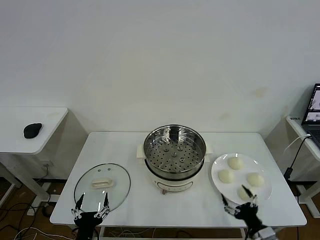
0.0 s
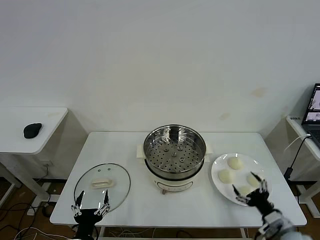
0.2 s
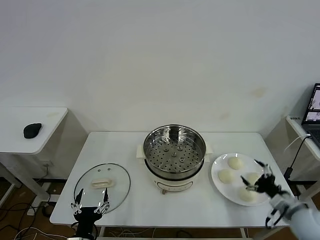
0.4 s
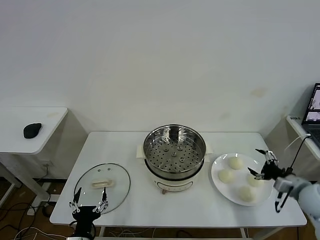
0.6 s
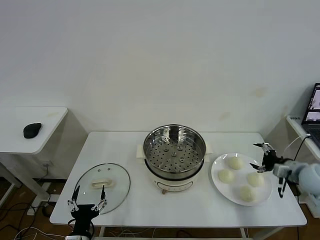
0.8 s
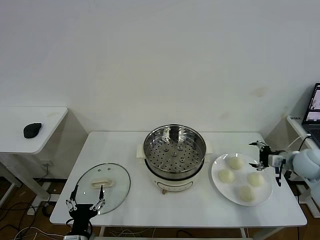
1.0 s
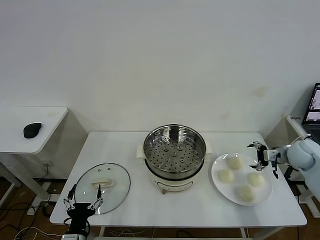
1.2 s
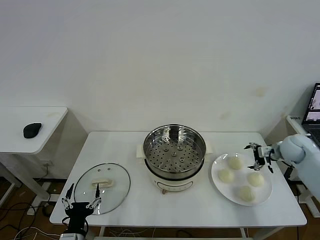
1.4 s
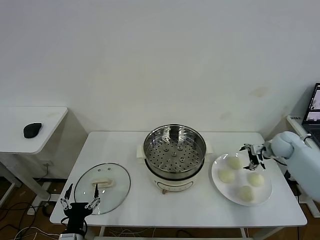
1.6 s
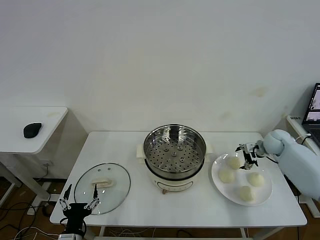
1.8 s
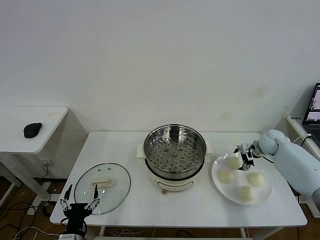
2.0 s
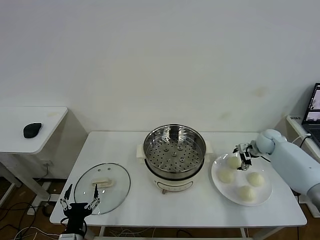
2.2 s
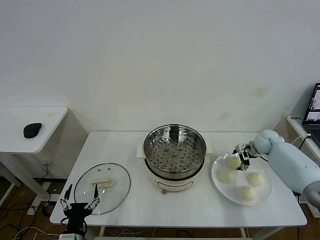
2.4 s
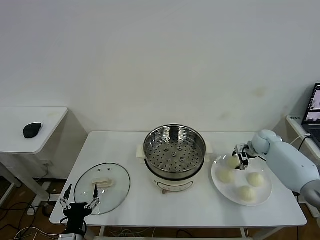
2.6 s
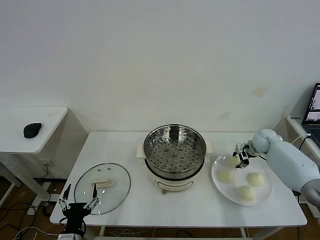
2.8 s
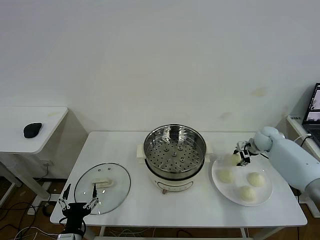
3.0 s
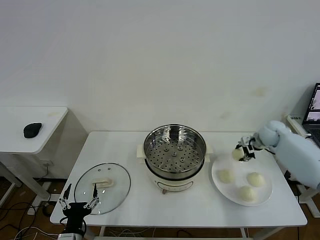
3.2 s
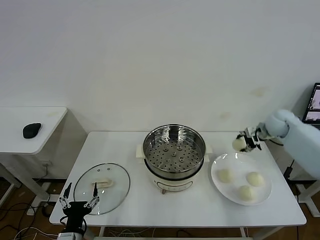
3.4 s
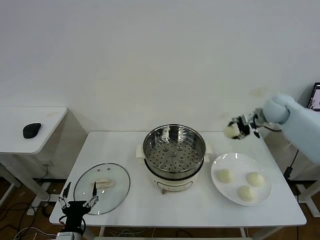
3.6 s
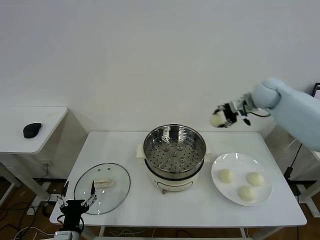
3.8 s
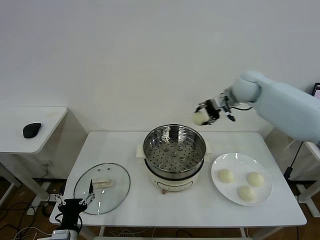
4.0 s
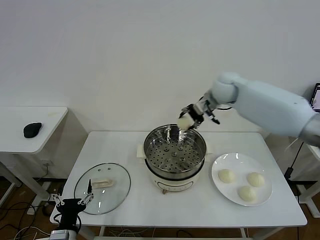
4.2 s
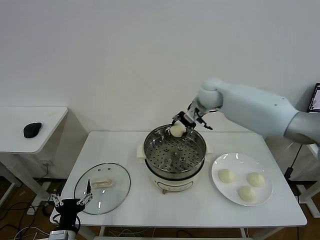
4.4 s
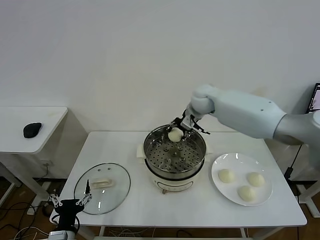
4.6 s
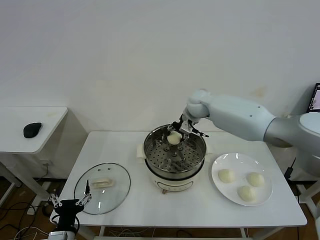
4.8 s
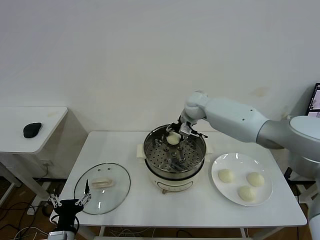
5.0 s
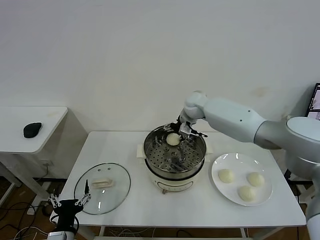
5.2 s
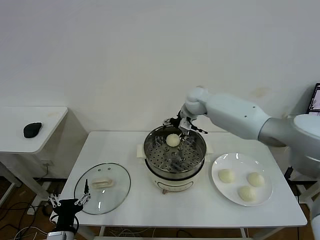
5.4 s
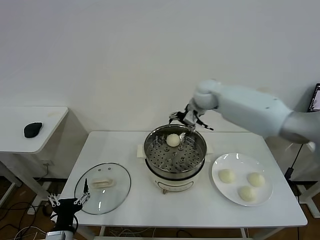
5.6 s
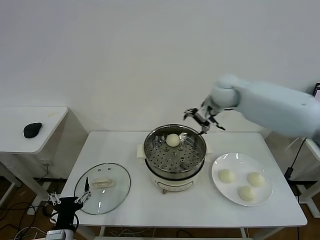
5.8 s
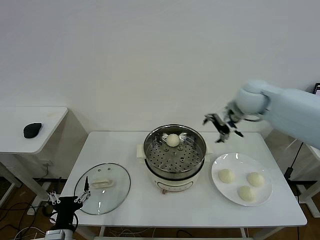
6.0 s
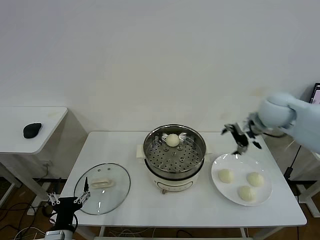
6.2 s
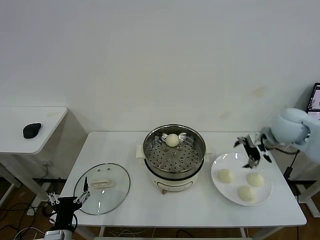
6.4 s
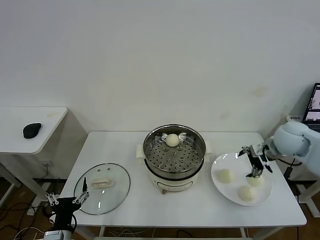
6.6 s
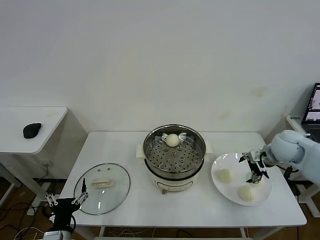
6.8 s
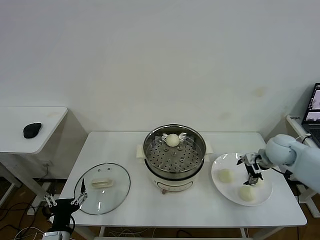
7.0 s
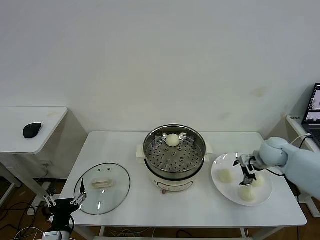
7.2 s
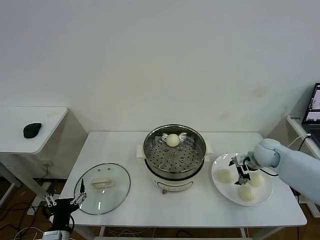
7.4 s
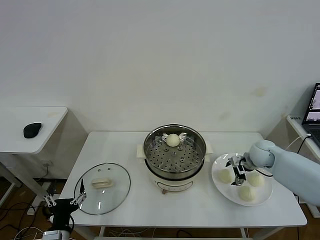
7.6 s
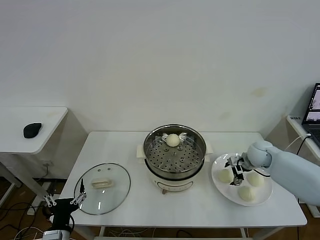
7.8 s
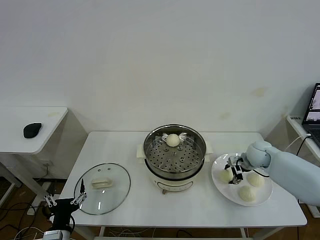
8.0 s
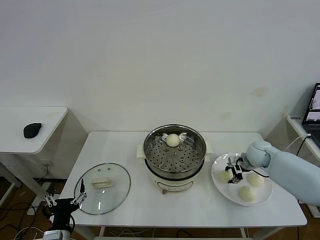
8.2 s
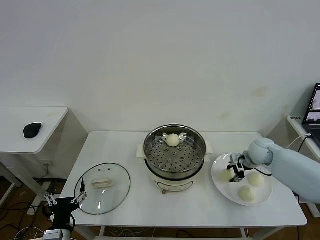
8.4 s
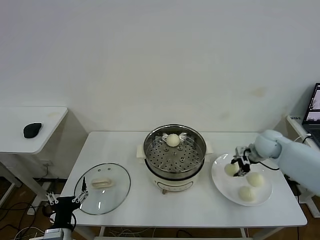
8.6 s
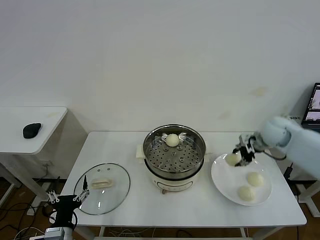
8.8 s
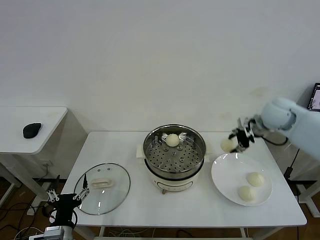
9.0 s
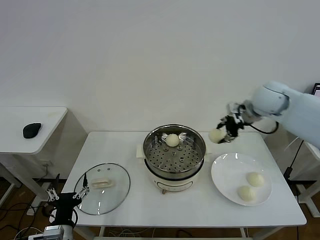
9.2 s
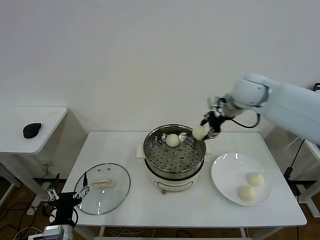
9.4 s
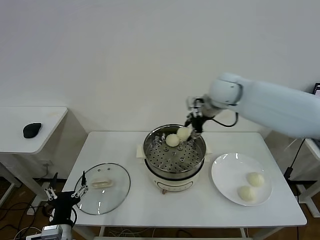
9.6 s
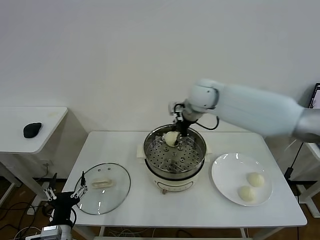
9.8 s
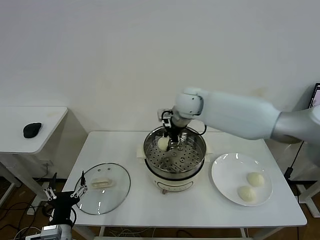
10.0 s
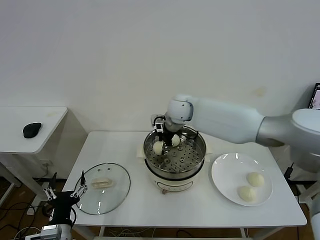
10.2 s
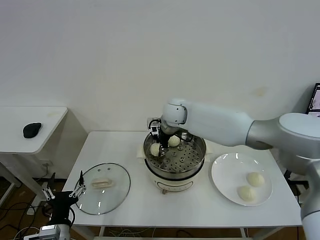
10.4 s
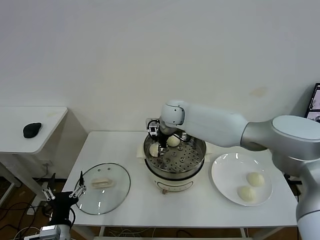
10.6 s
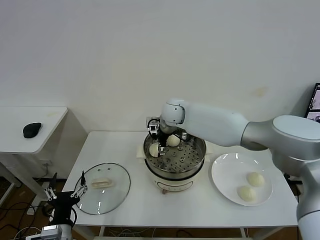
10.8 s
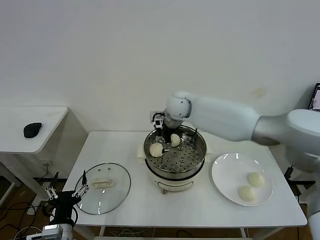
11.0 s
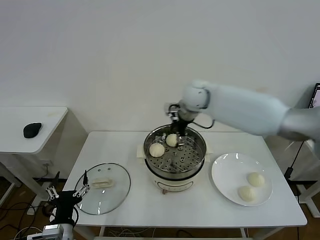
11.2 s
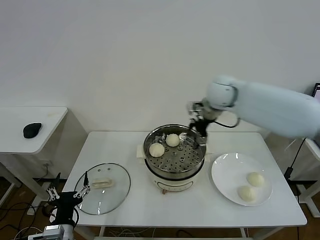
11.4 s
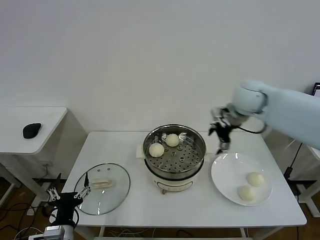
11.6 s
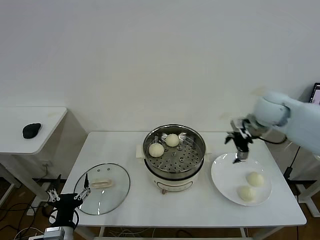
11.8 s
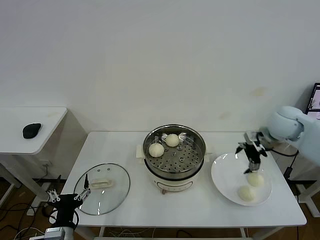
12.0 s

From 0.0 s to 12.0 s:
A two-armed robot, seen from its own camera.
Task of the whole recording: take steamed baozi put them in steamer then cover it.
Step, from 0.0 s to 3.0 s: Grasp the baozi in the plate with right gripper.
Step, from 3.2 s to 5.4 s: Place the baozi on the steamer with right gripper.
Step, from 5.6 s to 8.2 s: Grasp the baozi in the plate with right gripper.
Step, from 8.4 s to 10.6 s: Place the baozi on the steamer with right gripper.
From 1.6 s to 3.0 s: The right gripper closes its fingers.
From 3.0 s to 4.4 s: The right gripper goes approximately 30 cm to the left and upward.
From 4.4 s to 6.0 s: The right gripper is displaced to the right and backward by some 20 cm, and opens.
From 6.0 s to 7.6 s: The right gripper shifts some 20 cm downward.
From 7.6 s to 9.0 s: The right gripper heads upward, covering some 20 cm, and closes its fingers.
From 9.0 s to 10.4 s: The right gripper is displaced to the left by approximately 30 cm.
From 10.4 s to 12.0 s: The right gripper shifts some 35 cm to the right, and opens up.

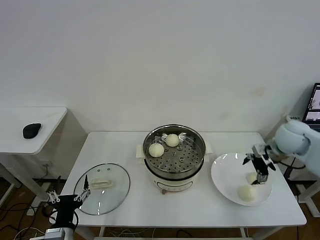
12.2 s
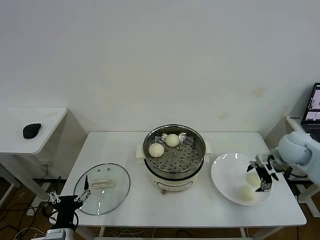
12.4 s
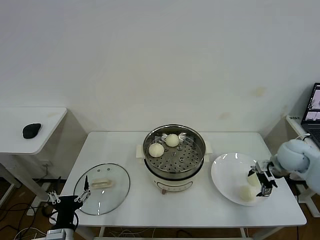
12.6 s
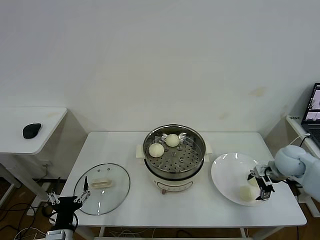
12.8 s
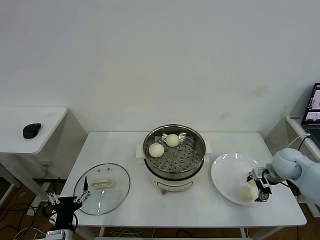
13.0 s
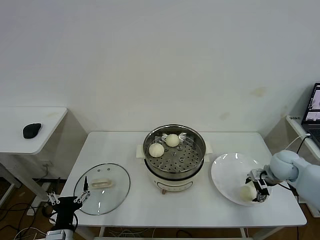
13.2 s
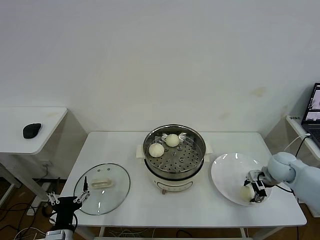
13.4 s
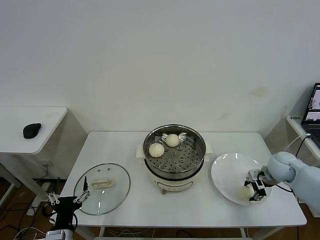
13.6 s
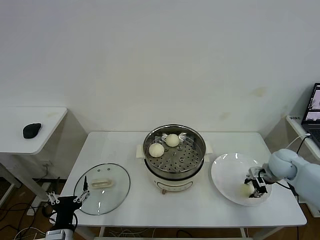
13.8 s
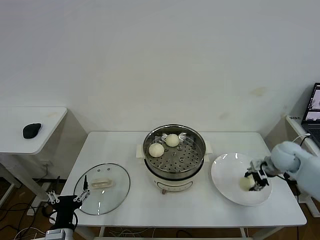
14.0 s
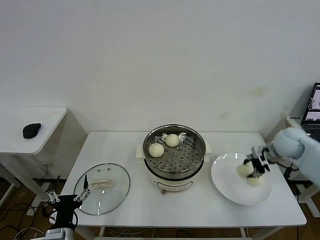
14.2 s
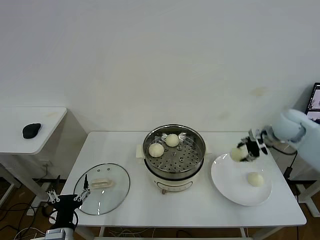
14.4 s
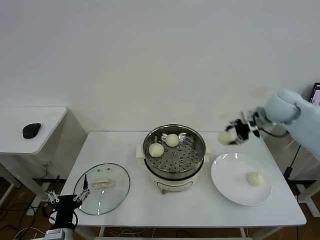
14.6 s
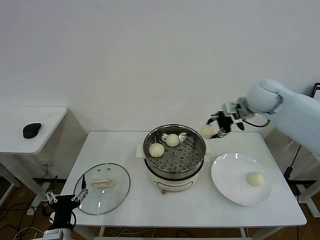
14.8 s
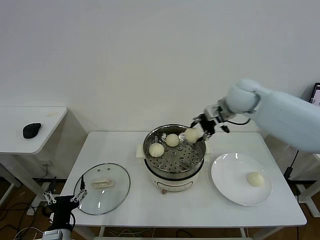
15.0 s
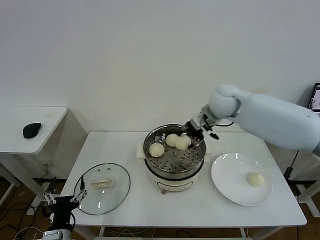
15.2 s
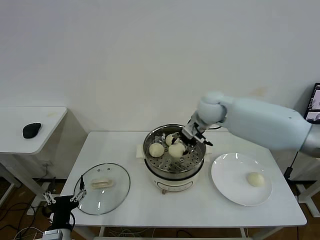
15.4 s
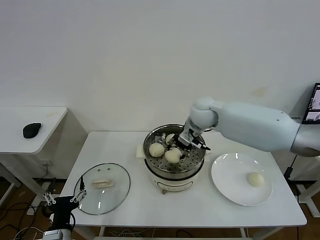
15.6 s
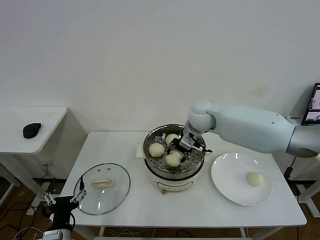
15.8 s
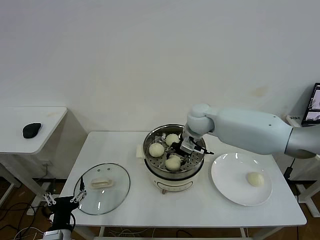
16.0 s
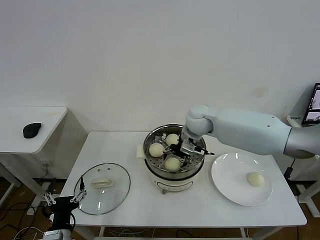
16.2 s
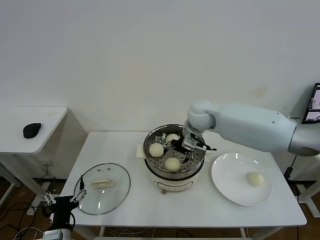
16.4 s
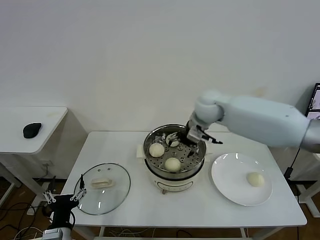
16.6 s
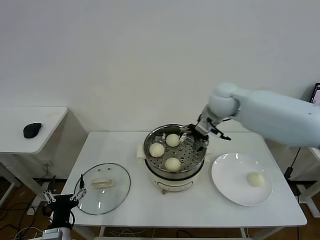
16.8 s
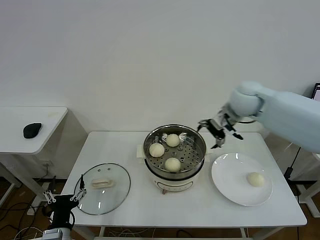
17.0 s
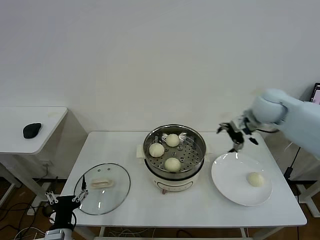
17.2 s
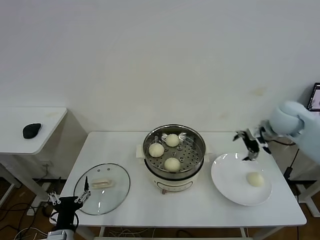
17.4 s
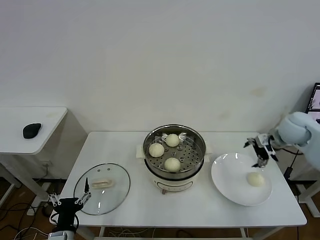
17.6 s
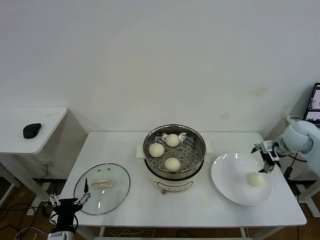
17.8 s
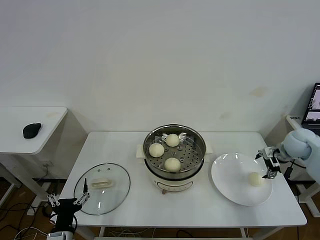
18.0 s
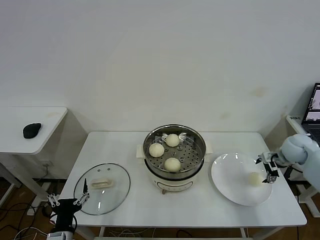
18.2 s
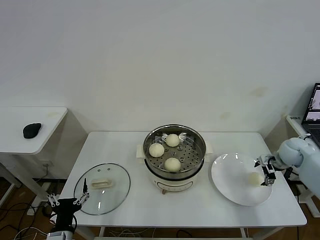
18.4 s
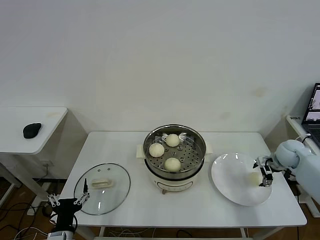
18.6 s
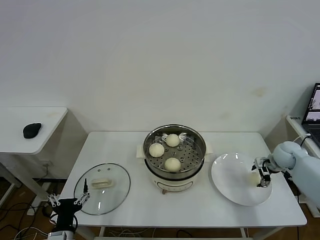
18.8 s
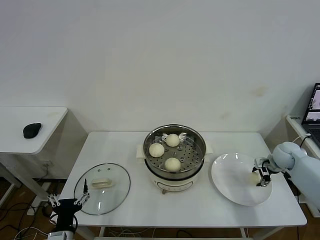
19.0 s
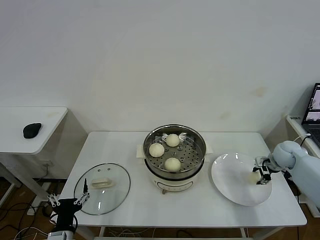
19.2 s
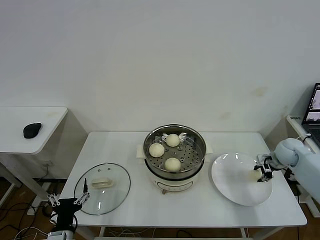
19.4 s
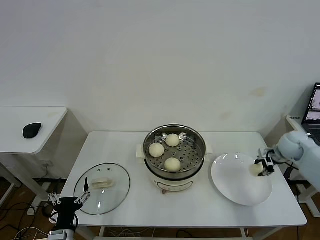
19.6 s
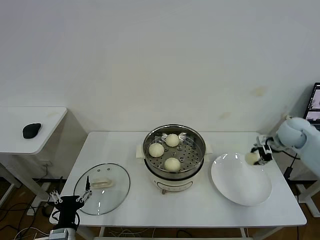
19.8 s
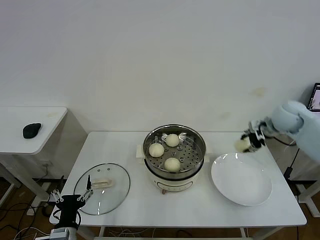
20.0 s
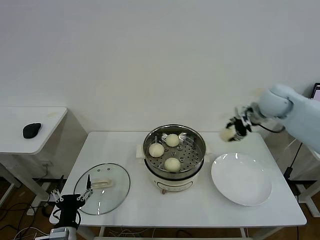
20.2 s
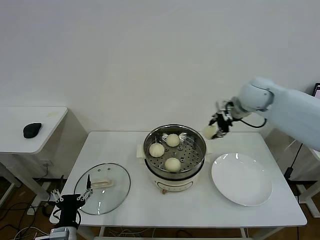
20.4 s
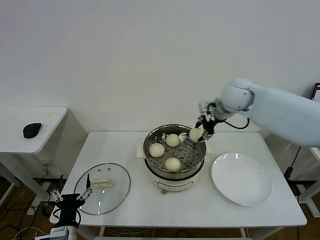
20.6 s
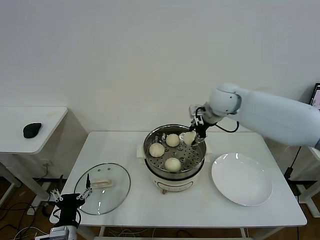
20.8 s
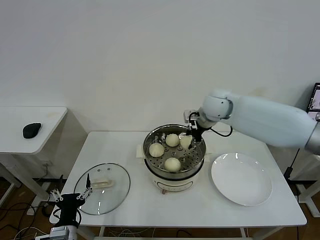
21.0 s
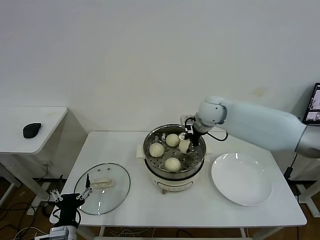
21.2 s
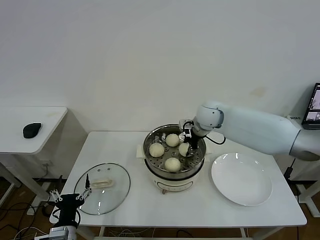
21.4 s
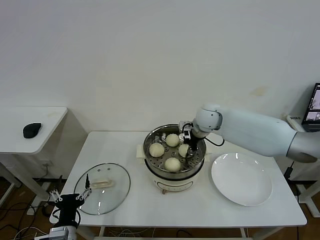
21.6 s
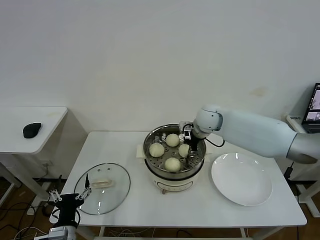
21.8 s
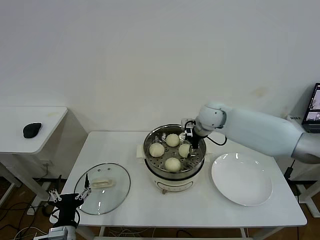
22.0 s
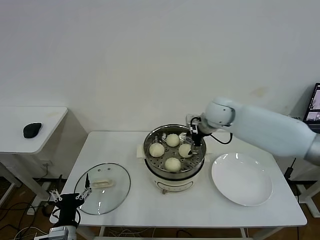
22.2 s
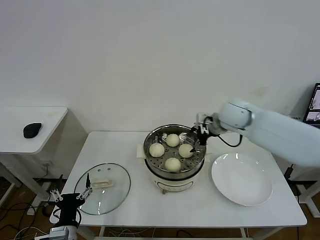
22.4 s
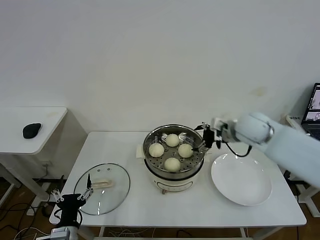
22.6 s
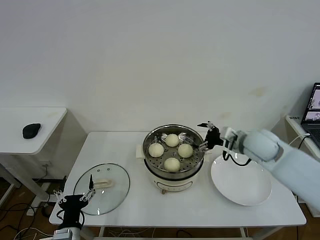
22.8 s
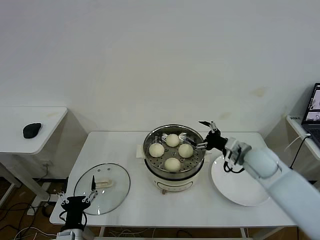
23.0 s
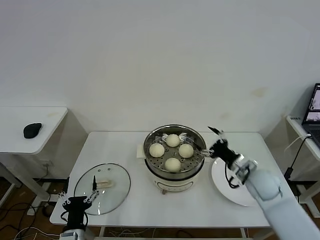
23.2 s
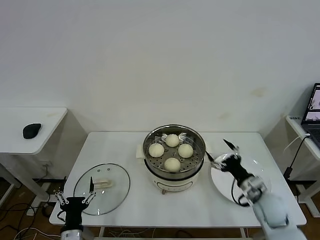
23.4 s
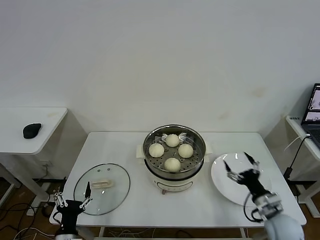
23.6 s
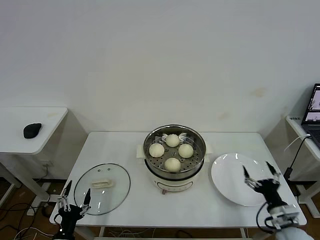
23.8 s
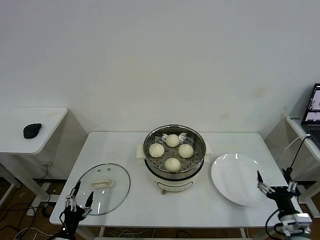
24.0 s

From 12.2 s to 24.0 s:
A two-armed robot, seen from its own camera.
Task of the whole recording: take steamed baozi put them in steamer then cover it.
Step, from 13.6 s to 16.2 s: Place the baozi on the steamer with right gripper.
Step, from 16.4 s to 19.0 s: Grasp the baozi in the plate with right gripper.
Step, from 19.2 s to 22.0 s: Place the baozi on the steamer with right gripper.
From 12.2 s to 13.6 s: The right gripper moves downward, about 10 cm, and closes its fingers.
From 13.6 s to 15.2 s: The right gripper goes about 30 cm to the left, upward and forward.
From 15.2 s to 16.6 s: The right gripper opens up.
From 16.6 s to 18.2 s: The right gripper moves to the right and downward, roughly 35 cm.
From 18.2 s to 19.6 s: The right gripper closes up.
From 19.6 s to 21.0 s: The right gripper goes roughly 30 cm to the left and upward.
From 21.0 s to 22.6 s: The right gripper heads to the right and backward, covering some 10 cm, and opens its fingers.
From 22.6 s to 24.0 s: The right gripper shifts roughly 40 cm backward, downward and to the right, while the left gripper goes some 10 cm downward and to the left.
